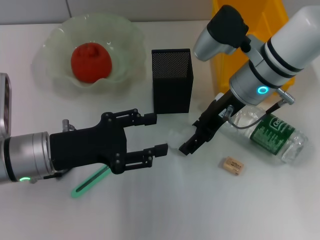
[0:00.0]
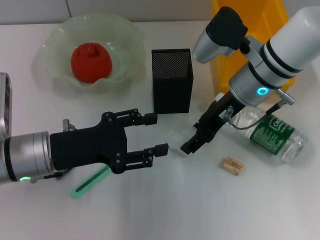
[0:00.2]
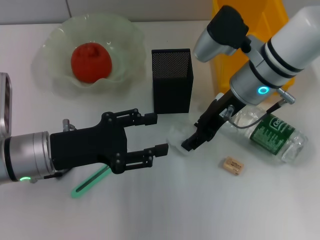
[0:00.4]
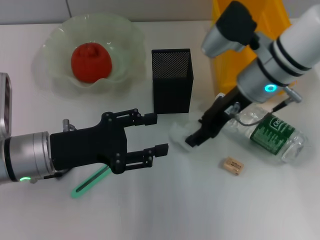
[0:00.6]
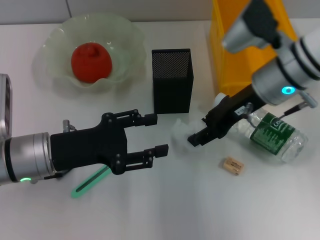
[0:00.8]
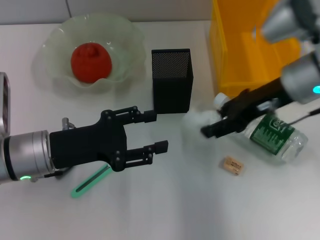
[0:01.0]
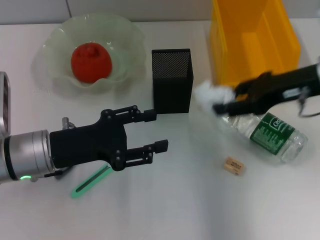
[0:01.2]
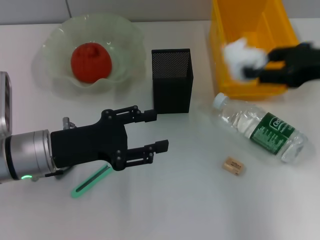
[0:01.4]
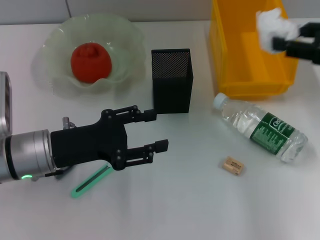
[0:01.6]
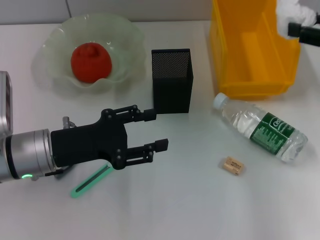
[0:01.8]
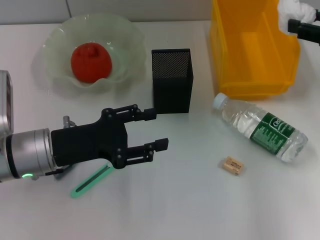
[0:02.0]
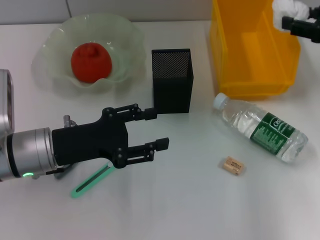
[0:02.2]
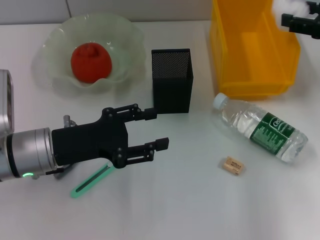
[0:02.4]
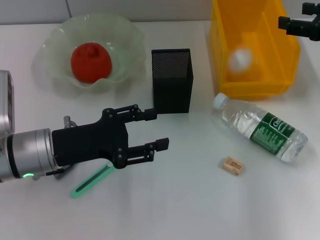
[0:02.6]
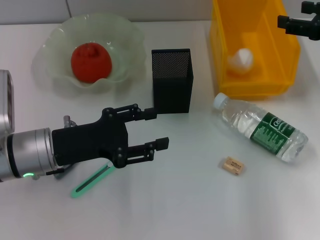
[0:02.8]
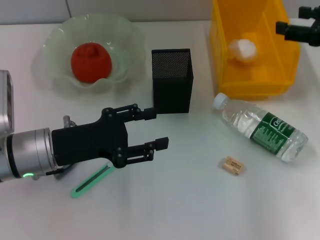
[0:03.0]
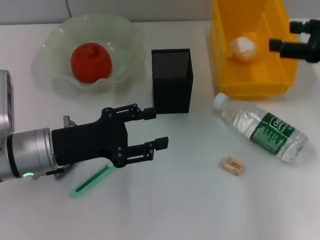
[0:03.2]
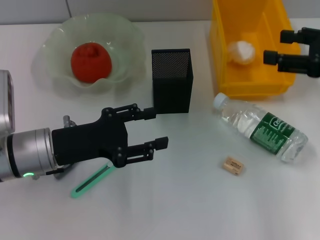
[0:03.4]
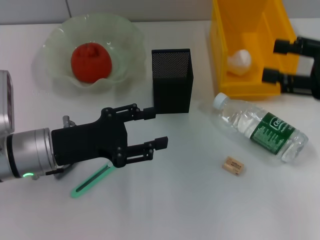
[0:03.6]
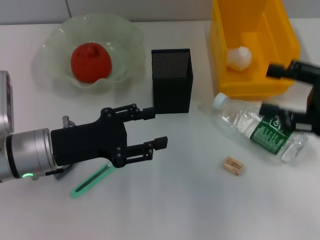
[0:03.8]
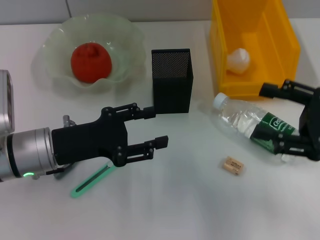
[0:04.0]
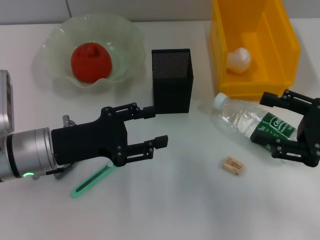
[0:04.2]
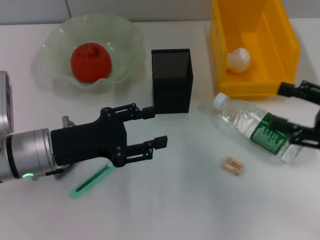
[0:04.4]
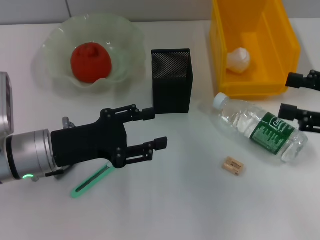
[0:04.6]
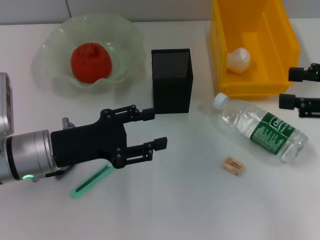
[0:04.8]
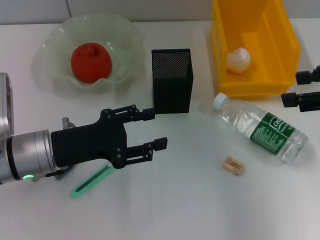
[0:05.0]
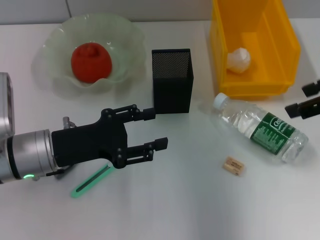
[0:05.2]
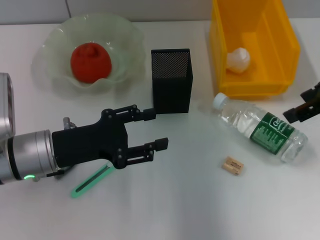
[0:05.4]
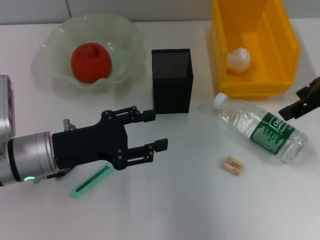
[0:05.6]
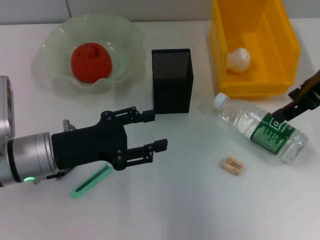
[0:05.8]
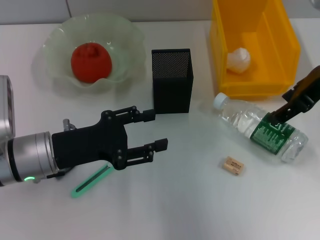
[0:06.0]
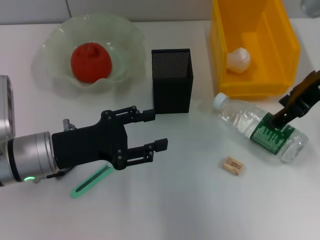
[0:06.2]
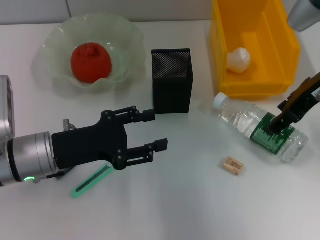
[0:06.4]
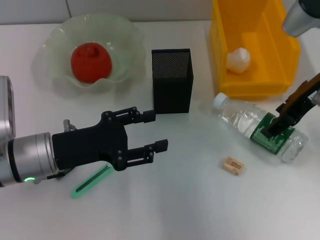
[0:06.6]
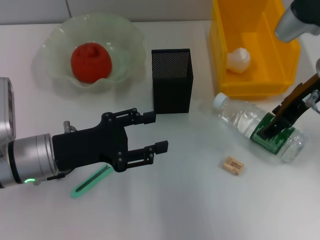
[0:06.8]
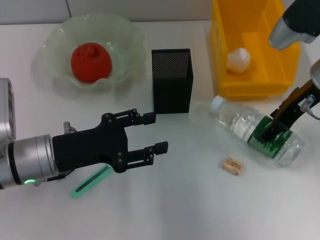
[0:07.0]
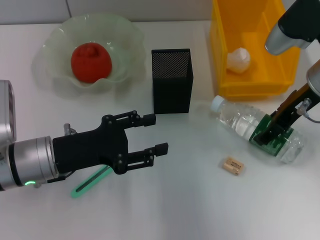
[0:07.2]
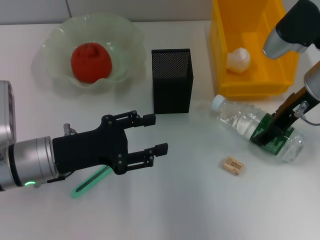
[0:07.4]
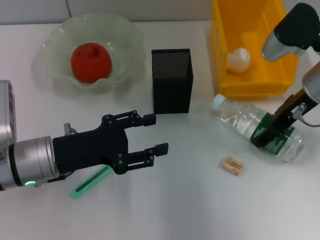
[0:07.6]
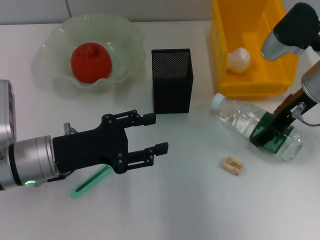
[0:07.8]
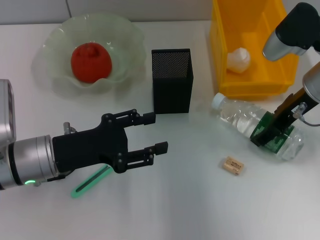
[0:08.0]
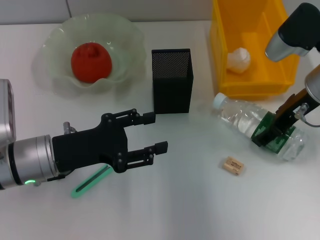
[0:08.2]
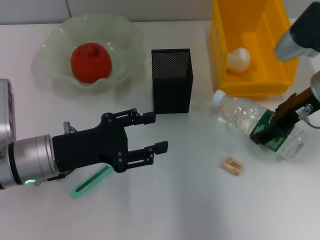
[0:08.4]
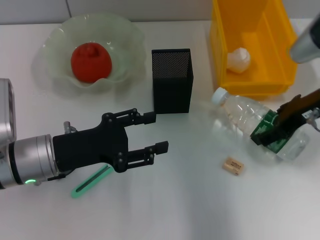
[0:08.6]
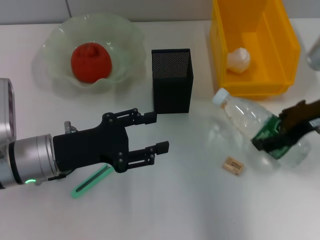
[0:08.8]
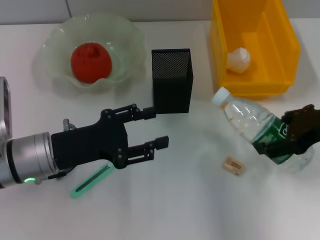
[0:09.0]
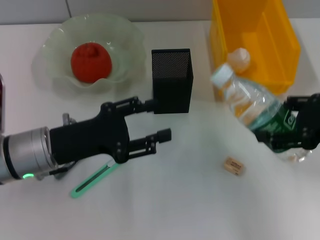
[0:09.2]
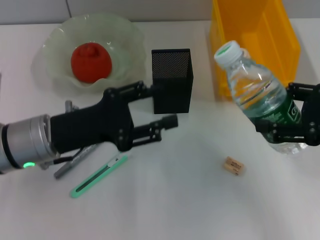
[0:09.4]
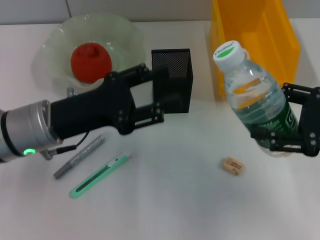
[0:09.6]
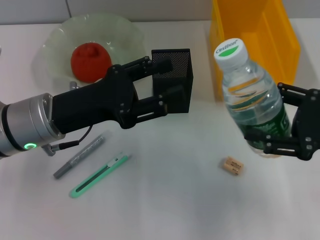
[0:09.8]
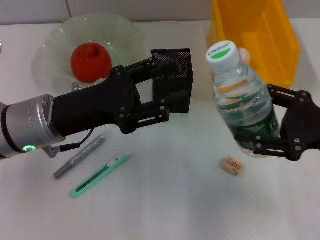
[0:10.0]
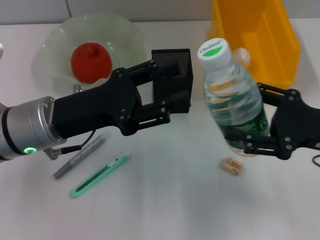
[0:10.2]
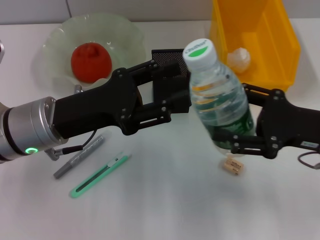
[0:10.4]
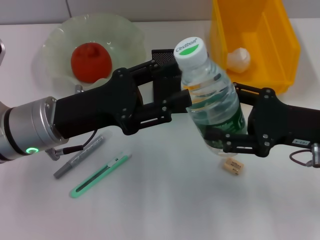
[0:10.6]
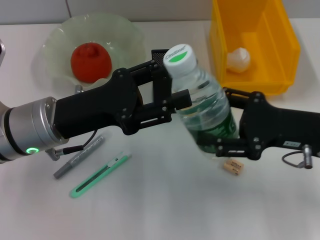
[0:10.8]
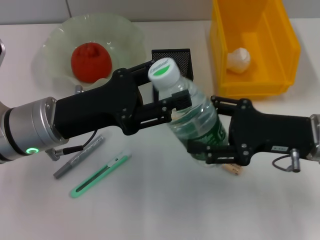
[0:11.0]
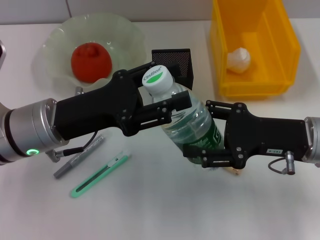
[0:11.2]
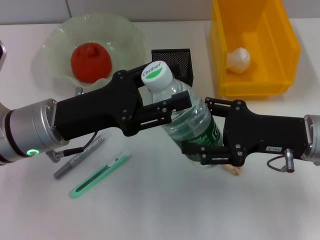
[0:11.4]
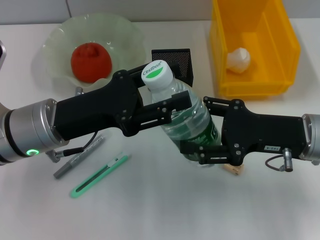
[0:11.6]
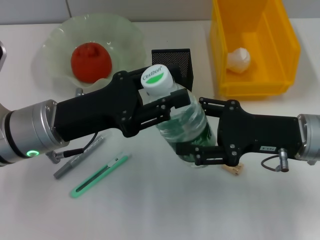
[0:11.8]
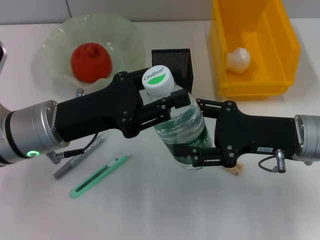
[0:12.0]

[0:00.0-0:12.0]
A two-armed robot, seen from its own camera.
Step, 0:00.6 to 0:02.8: Place the paper ball into the trash can with the right hand.
Step, 0:03.0 to 0:08.2: Grab the water bottle with the right hand.
0:00.0 to 0:01.6: The right gripper moves to the right, some 20 cm, and closes up.
0:01.6 to 0:03.0: The right gripper opens up.
0:03.0 to 0:04.4: The right gripper travels backward and downward by approximately 15 cm.
0:04.4 to 0:06.0: The right gripper is displaced forward, upward and to the left by about 15 cm.
0:06.0 to 0:07.6: The right gripper goes about 10 cm downward.
0:07.6 to 0:09.0: The right gripper shifts some 10 cm backward and to the right.
0:09.0 to 0:10.4: The right gripper travels downward by some 5 cm, while the left gripper shifts by about 5 cm.
0:10.4 to 0:12.0: The right gripper moves some 5 cm.

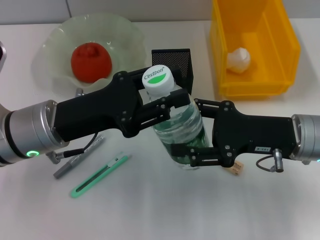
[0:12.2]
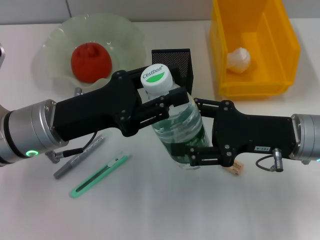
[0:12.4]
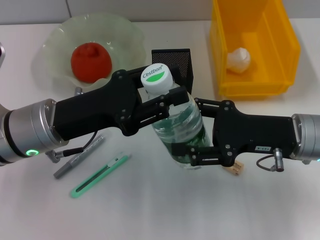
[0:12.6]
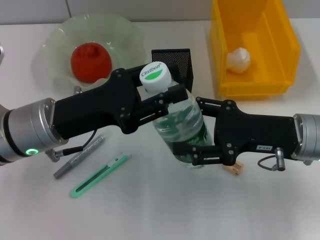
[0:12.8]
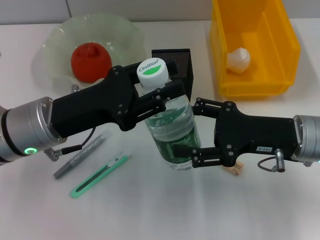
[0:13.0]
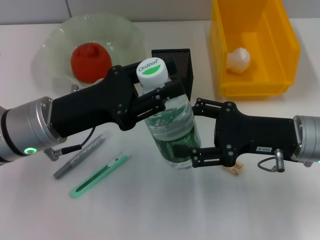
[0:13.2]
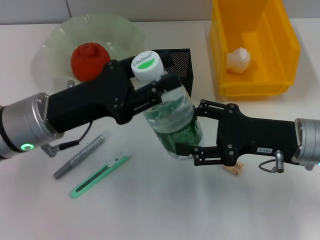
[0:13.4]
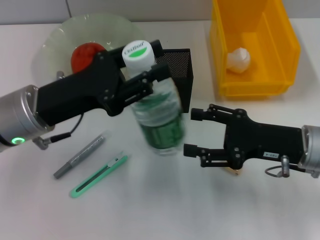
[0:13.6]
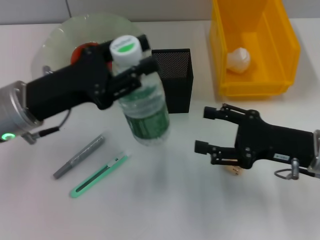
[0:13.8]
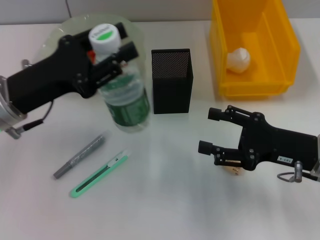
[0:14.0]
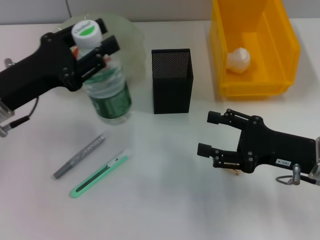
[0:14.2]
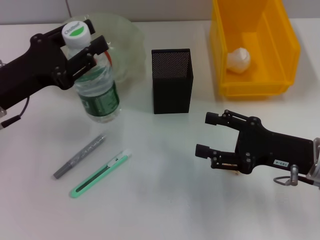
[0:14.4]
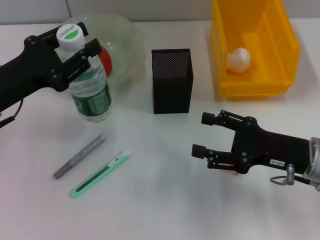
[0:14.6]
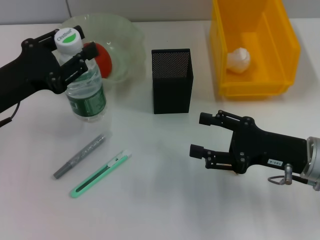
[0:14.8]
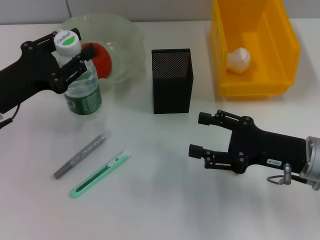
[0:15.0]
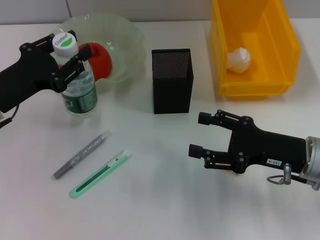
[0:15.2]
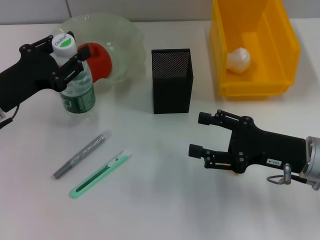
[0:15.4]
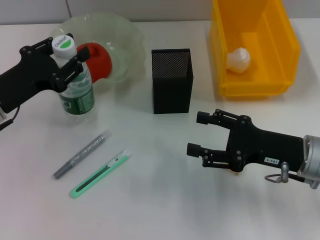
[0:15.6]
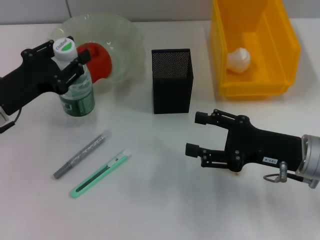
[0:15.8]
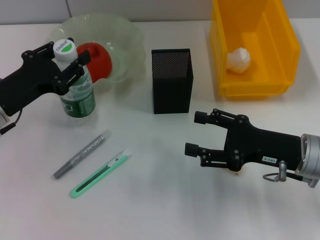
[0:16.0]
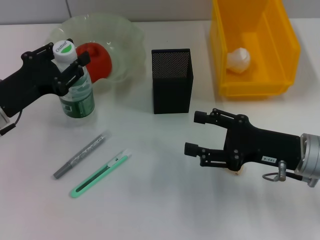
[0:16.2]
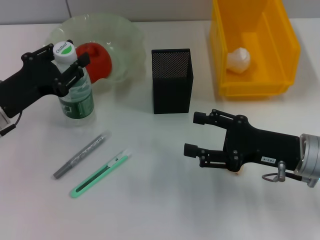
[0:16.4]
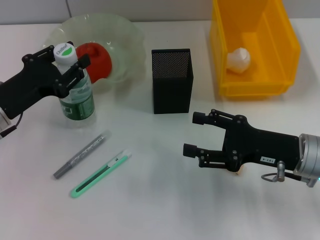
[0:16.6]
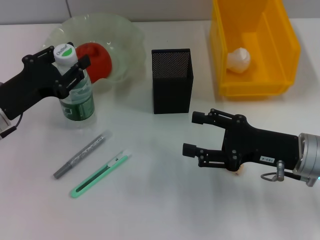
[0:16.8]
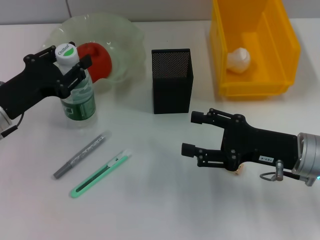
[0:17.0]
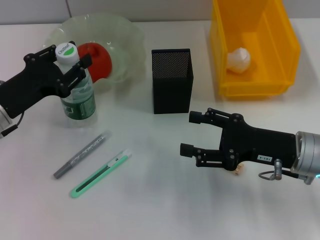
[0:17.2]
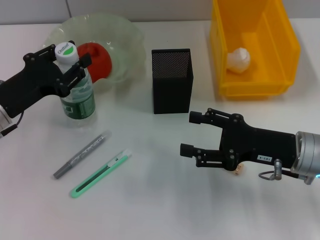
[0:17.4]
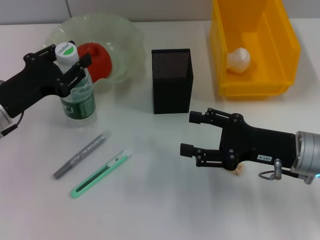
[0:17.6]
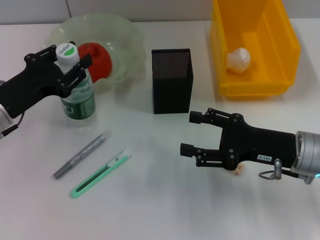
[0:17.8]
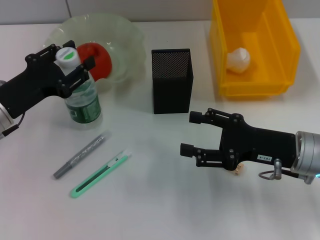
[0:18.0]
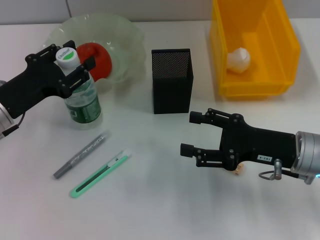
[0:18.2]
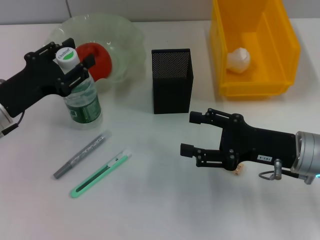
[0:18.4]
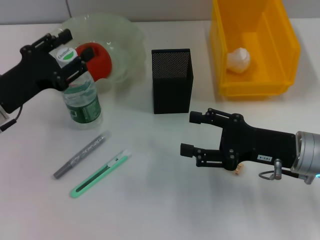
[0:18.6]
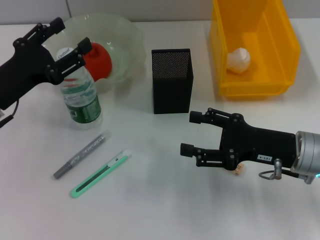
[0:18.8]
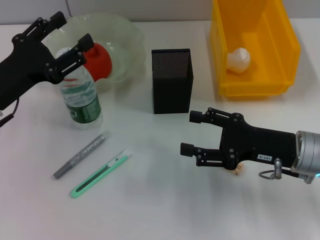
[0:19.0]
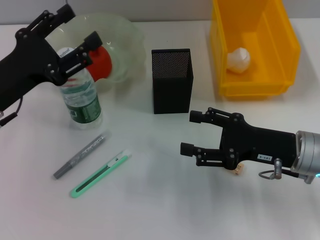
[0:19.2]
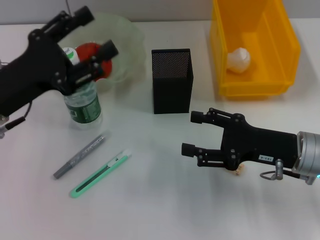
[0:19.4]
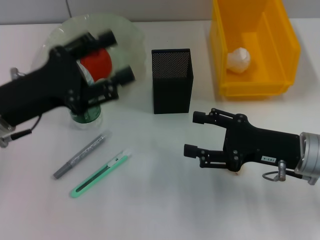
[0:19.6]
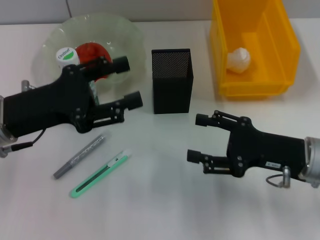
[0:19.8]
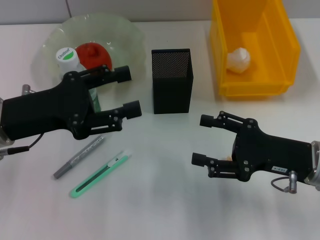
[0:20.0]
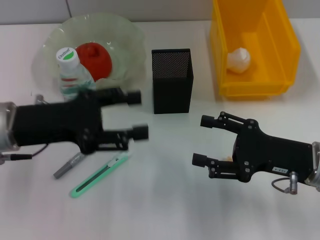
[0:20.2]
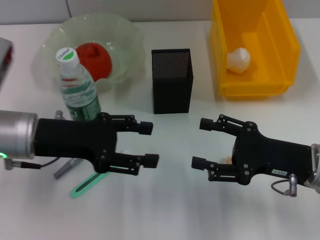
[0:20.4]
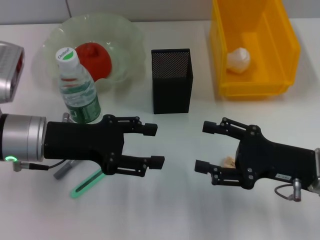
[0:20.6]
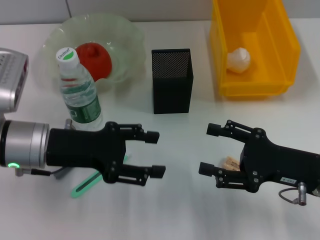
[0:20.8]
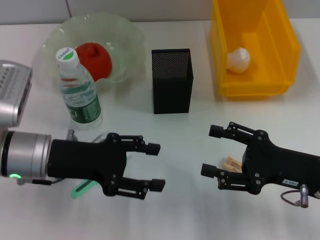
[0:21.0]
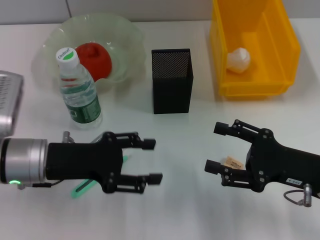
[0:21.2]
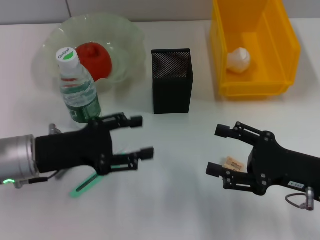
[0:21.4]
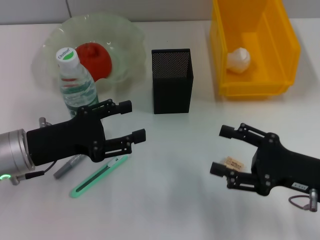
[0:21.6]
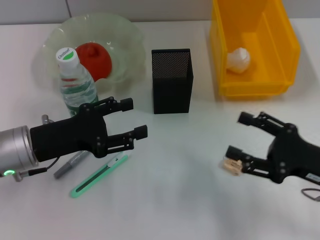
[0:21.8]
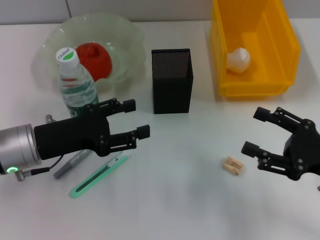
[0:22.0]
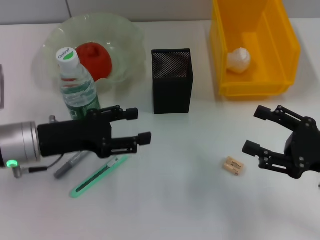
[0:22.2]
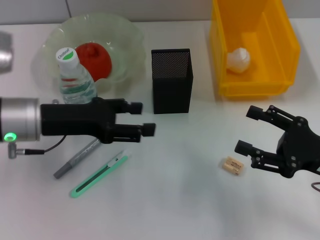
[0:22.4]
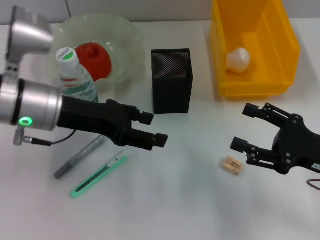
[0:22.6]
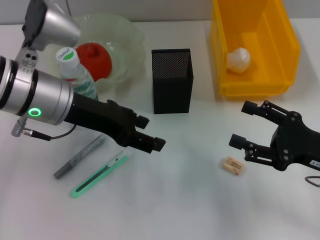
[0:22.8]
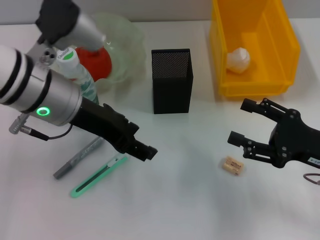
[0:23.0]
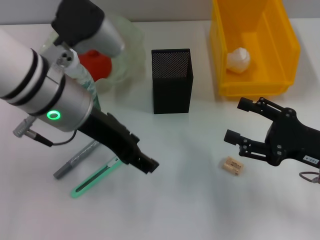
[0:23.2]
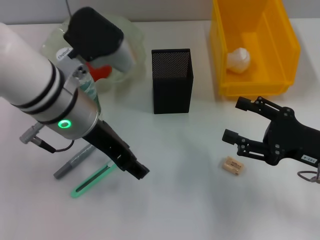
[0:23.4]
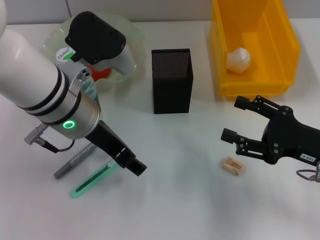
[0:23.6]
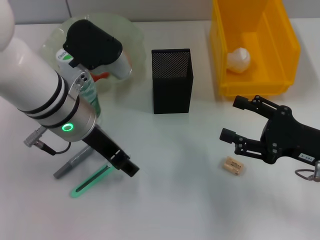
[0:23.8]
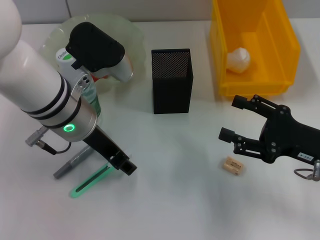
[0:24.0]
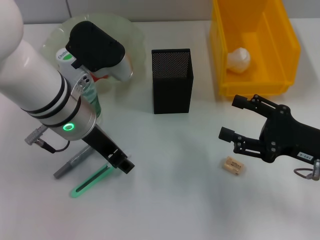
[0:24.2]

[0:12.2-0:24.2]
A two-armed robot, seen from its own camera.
Step, 0:13.4 to 0:18.2: Place the water bottle on the table with the left hand.
0:13.8 to 0:15.2: The left gripper goes some 5 cm to the left.
0:15.2 to 0:16.6: The grippers move only a little.
0:16.6 to 0:18.2: Both grippers stay put.
0:18.2 to 0:19.8: The left gripper changes place by about 5 cm.
0:19.8 to 0:21.2: The left gripper changes place by about 5 cm.
0:21.2 to 0:22.6: The left gripper moves upward, about 5 cm.
0:22.6 to 0:24.2: The left gripper shifts some 5 cm to the right.
